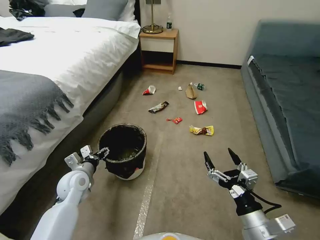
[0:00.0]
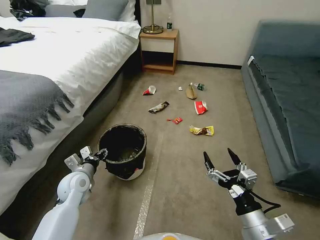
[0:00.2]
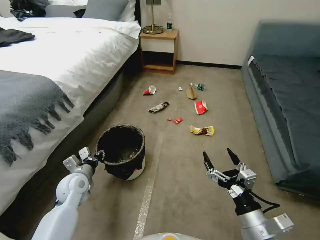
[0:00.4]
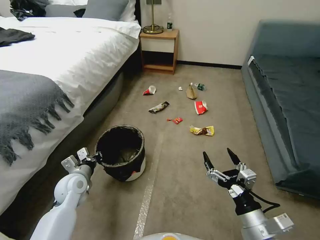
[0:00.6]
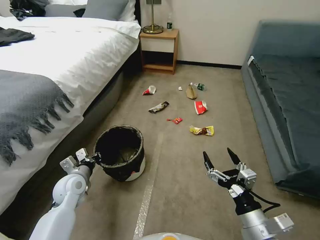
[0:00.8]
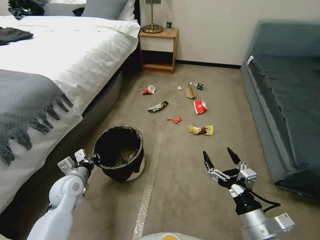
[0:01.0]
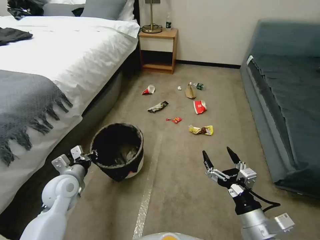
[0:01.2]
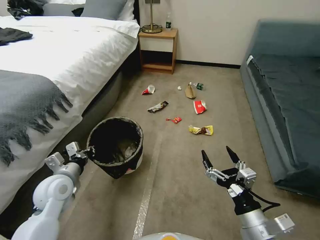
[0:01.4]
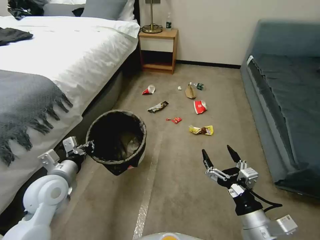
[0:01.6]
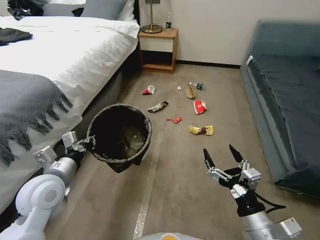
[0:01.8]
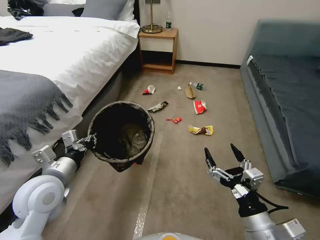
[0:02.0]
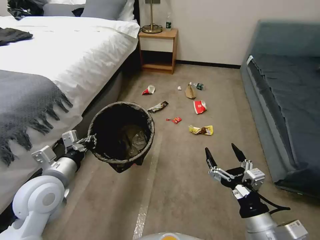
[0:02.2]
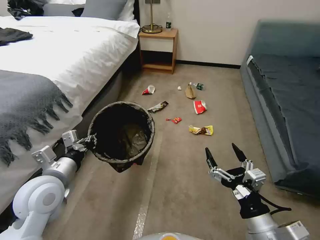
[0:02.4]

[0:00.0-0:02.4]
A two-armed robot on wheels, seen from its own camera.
Task of the whole recording: Pick up the trash can from the floor.
0:00.0 to 0:01.2: The left gripper changes place by some 5 cm, and closes.
0:01.2 to 0:02.4: The left gripper goes roughly 10 cm upward.
